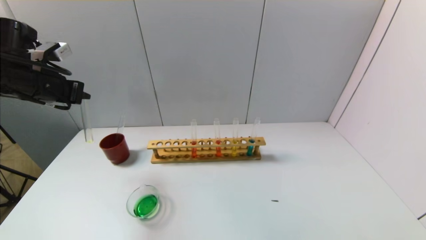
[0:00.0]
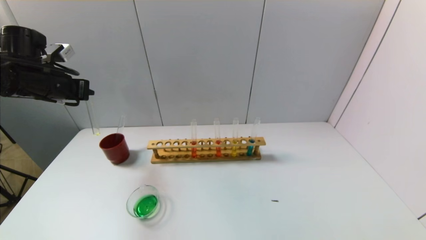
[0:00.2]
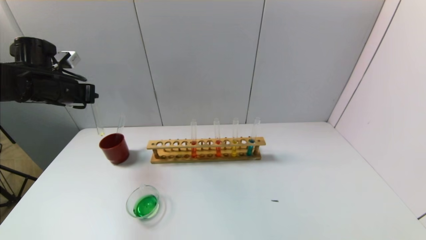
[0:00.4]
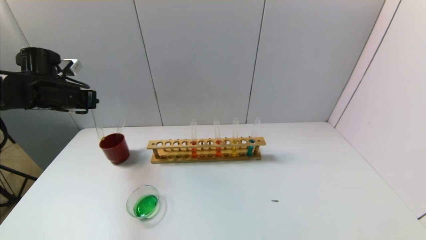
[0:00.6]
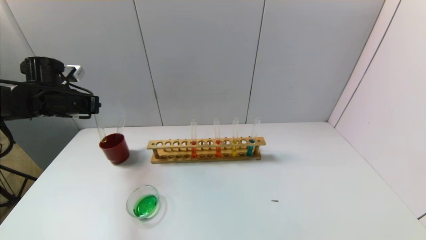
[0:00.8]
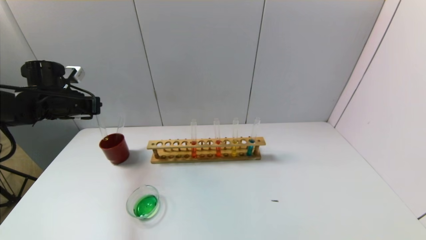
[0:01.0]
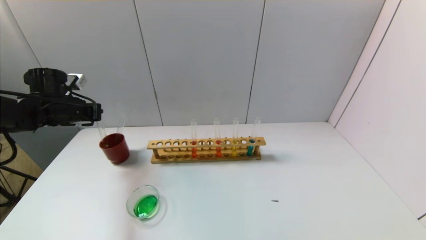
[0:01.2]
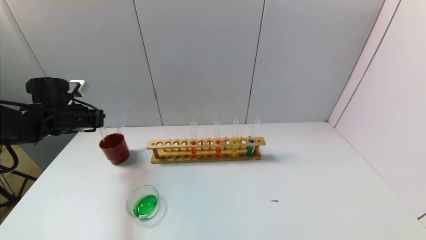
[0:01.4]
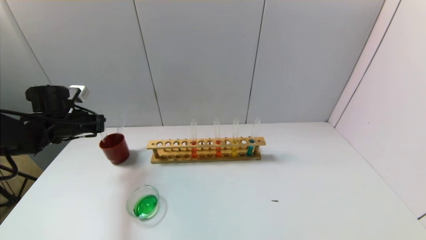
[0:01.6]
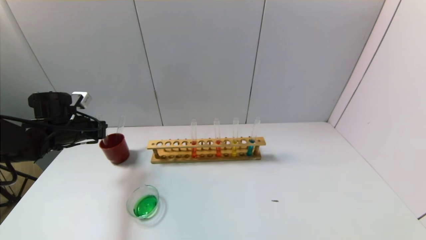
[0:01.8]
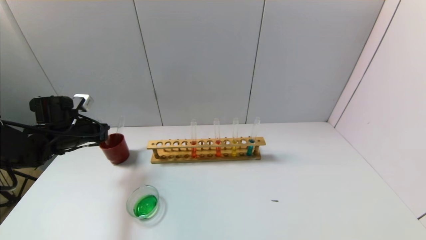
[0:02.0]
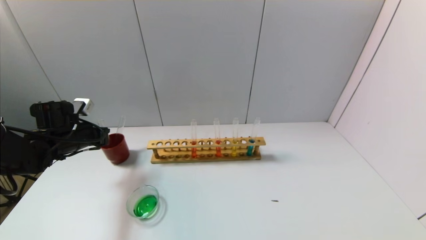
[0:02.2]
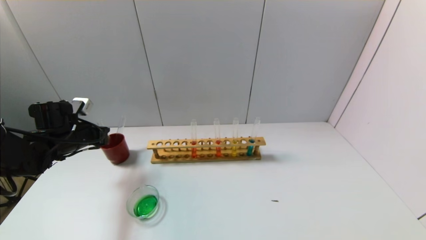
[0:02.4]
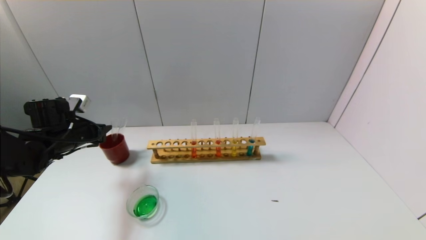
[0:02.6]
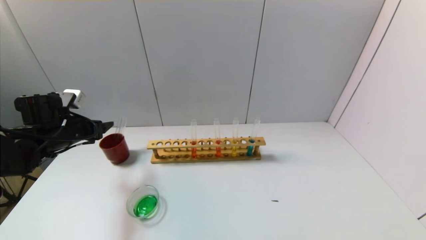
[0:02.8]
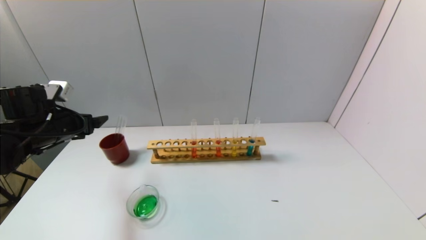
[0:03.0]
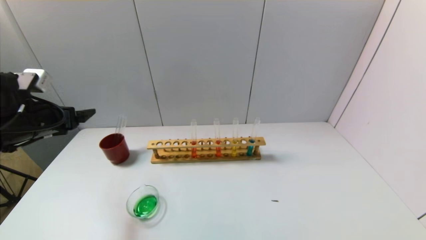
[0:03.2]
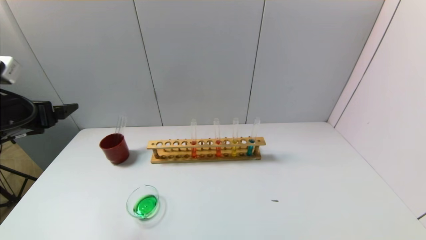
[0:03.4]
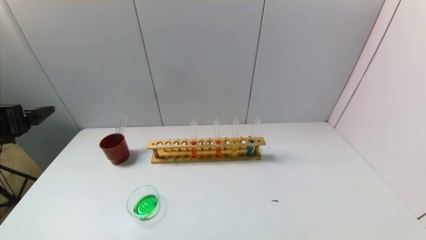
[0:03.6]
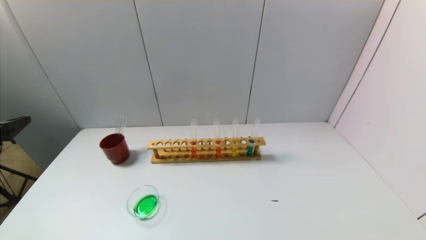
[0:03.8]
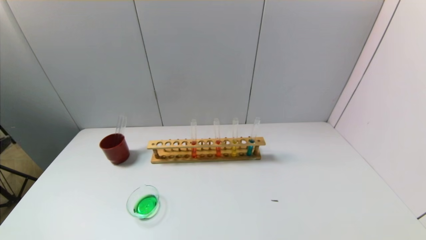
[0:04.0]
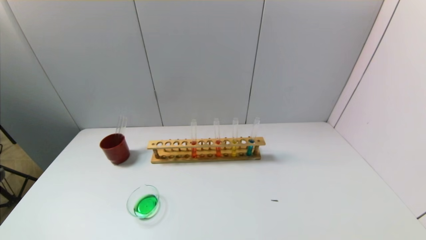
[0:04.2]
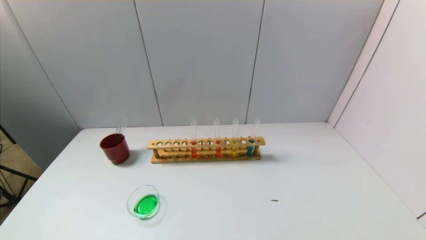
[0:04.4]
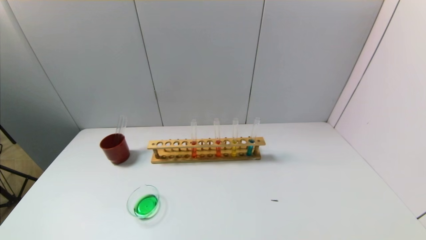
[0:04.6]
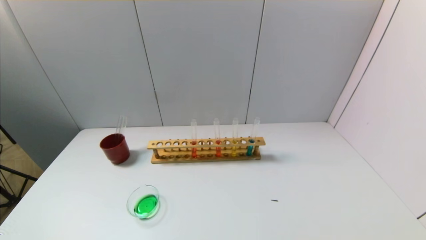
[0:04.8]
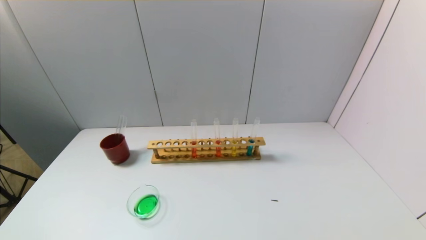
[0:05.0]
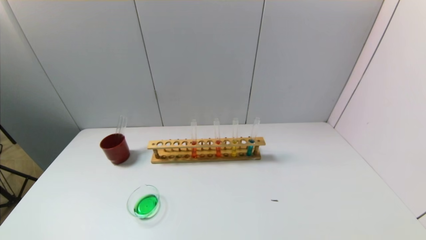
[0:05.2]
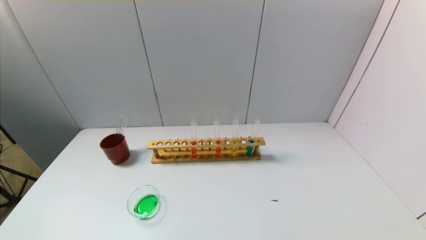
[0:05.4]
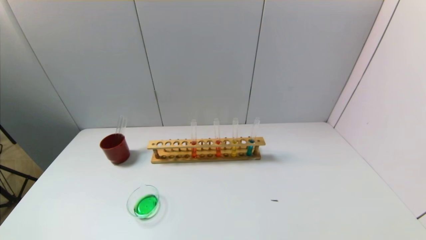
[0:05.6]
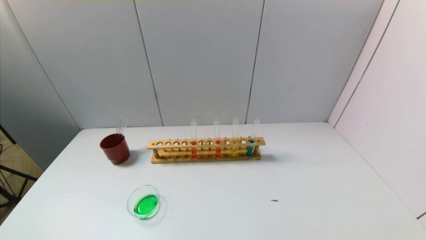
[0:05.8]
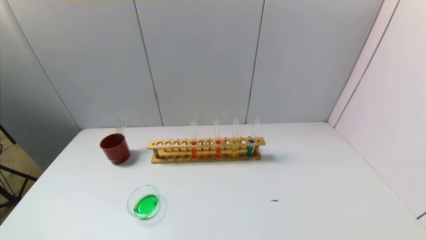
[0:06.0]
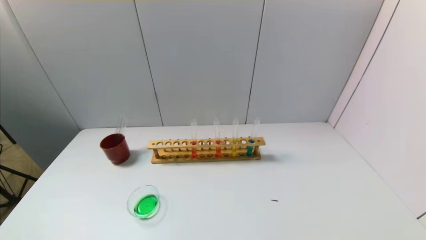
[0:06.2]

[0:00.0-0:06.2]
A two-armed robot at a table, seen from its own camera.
Task of the whole recording: pick up the test tube with yellow pigment and the test tube with blue pigment by grippers and pour them into the beaker.
Step, 0:00.0 to 0:02.6: Place the test tube into the brown cup with the left gripper.
0:00.0 to 0:01.6: The left gripper heads downward, covering about 15 cm.
0:01.6 to 0:03.2: The left gripper moves backward and upward, approximately 10 cm, and opens its fingers.
0:03.2 to 0:04.6: The left gripper moves backward, approximately 30 cm.
